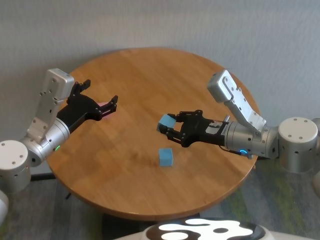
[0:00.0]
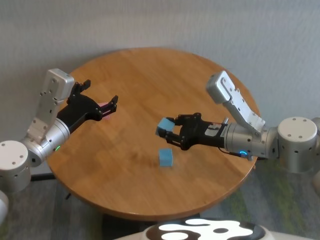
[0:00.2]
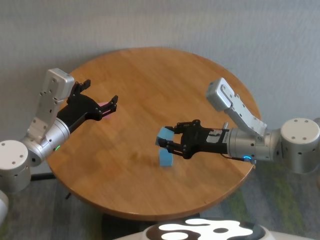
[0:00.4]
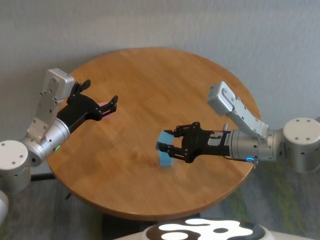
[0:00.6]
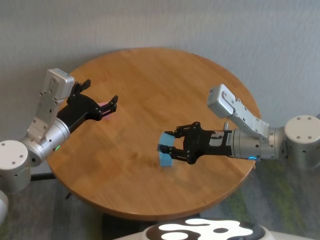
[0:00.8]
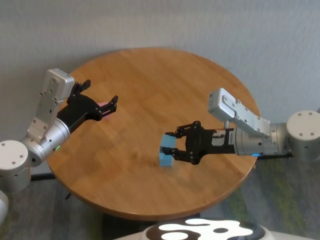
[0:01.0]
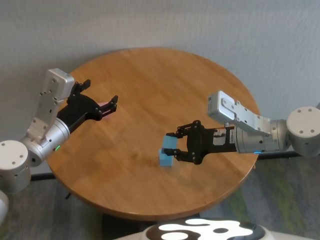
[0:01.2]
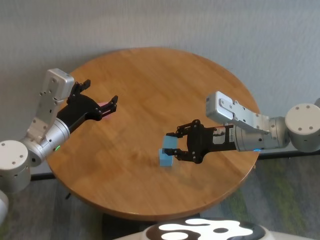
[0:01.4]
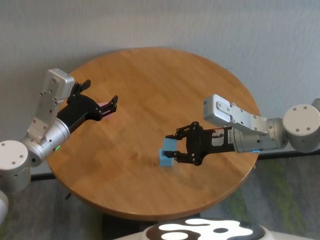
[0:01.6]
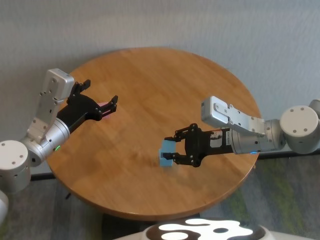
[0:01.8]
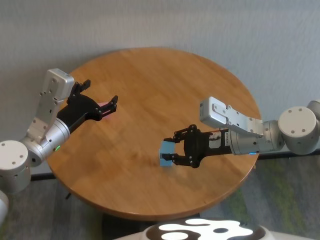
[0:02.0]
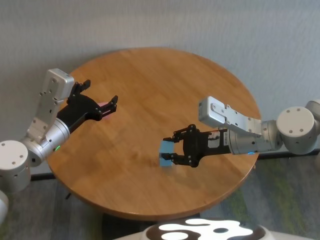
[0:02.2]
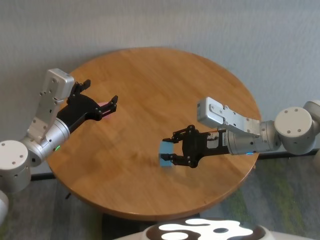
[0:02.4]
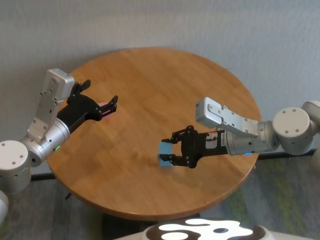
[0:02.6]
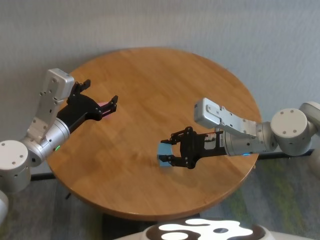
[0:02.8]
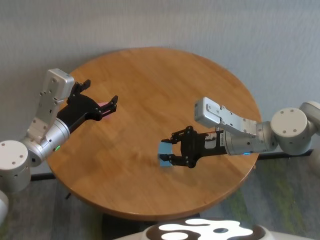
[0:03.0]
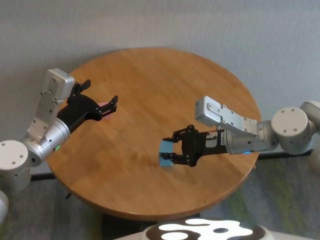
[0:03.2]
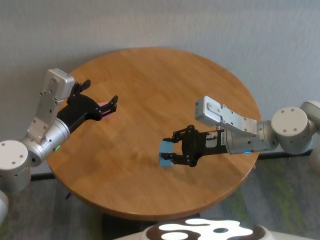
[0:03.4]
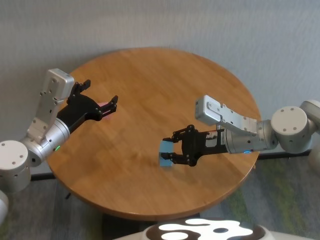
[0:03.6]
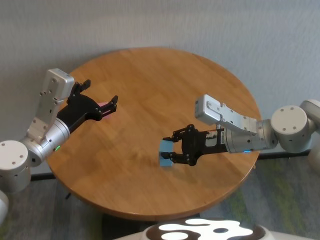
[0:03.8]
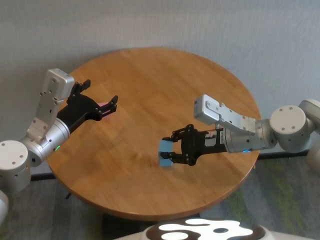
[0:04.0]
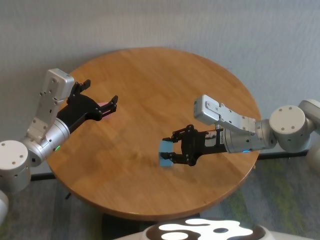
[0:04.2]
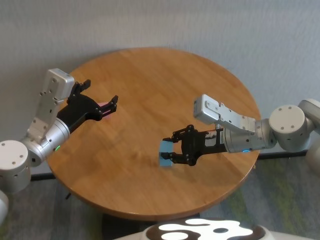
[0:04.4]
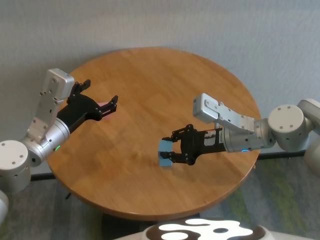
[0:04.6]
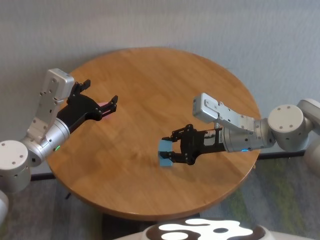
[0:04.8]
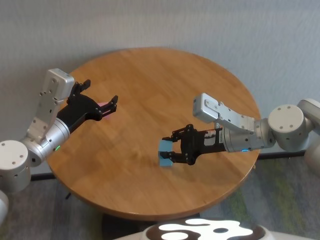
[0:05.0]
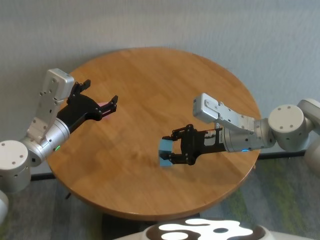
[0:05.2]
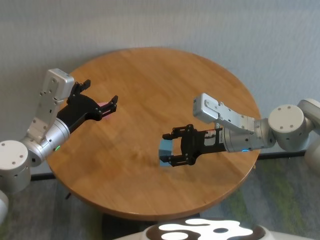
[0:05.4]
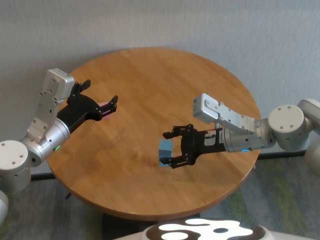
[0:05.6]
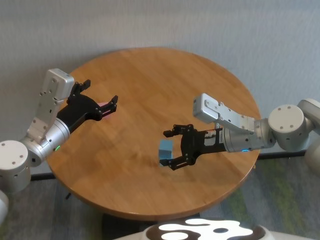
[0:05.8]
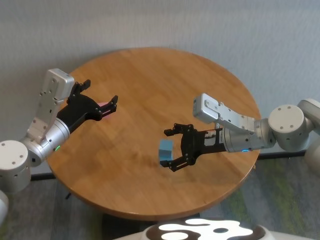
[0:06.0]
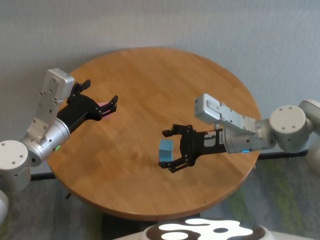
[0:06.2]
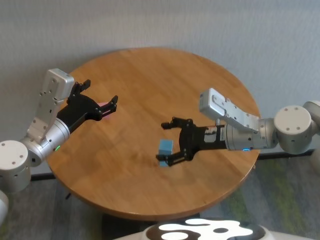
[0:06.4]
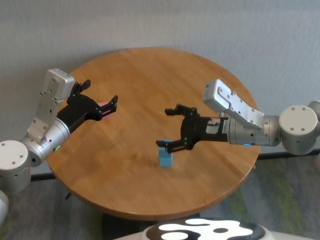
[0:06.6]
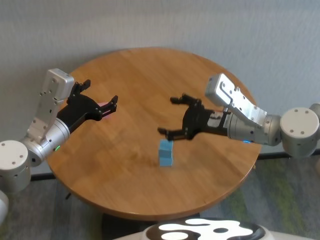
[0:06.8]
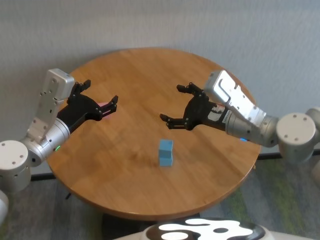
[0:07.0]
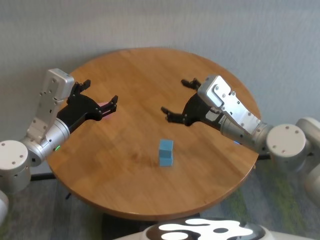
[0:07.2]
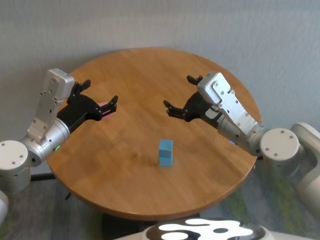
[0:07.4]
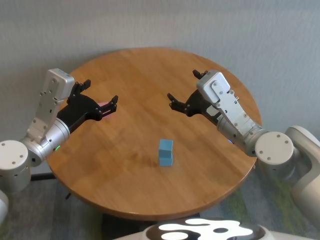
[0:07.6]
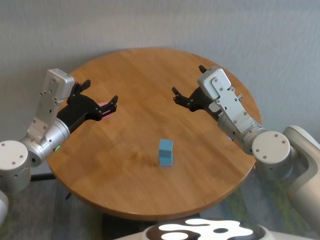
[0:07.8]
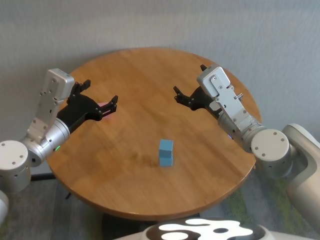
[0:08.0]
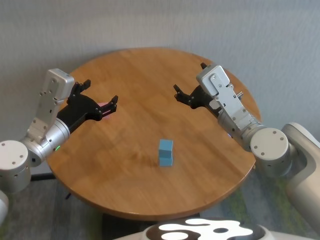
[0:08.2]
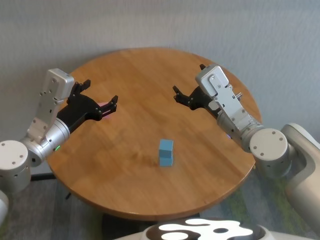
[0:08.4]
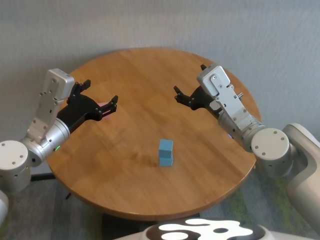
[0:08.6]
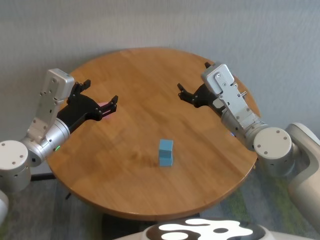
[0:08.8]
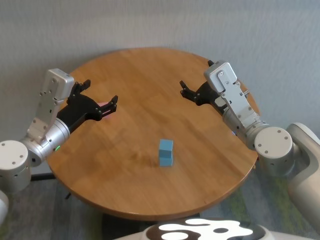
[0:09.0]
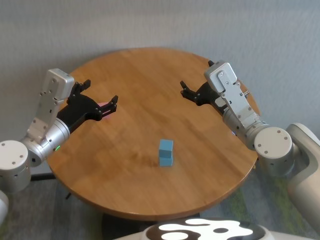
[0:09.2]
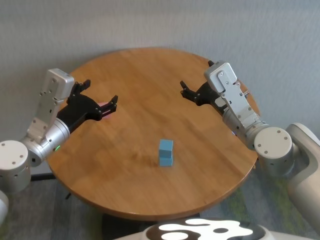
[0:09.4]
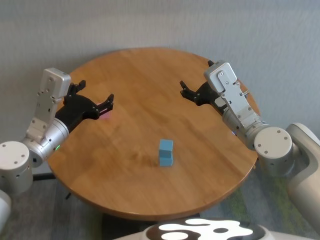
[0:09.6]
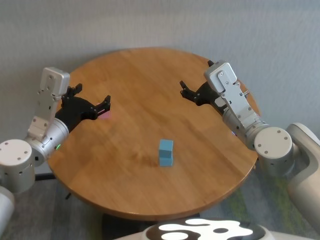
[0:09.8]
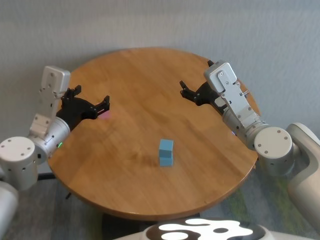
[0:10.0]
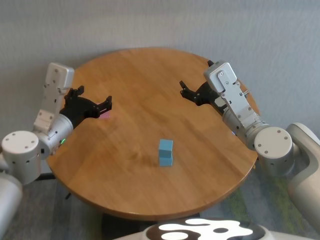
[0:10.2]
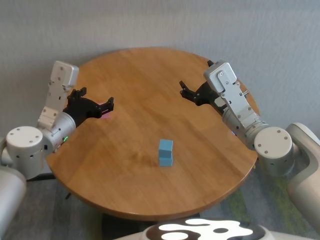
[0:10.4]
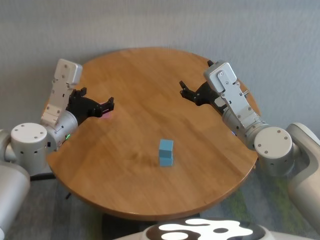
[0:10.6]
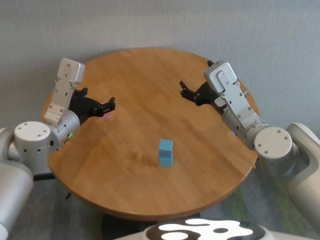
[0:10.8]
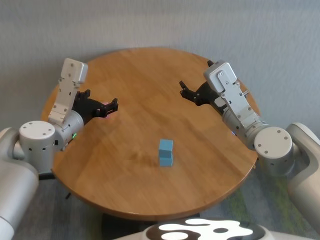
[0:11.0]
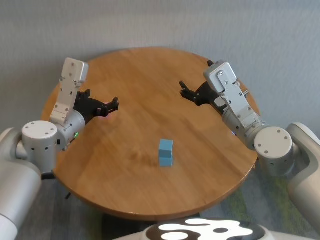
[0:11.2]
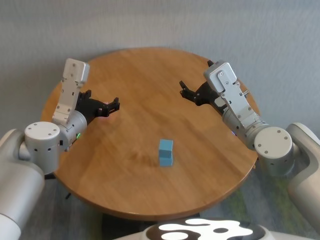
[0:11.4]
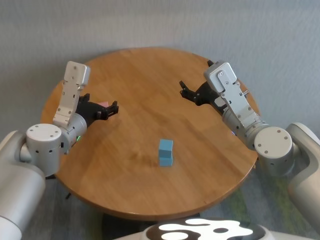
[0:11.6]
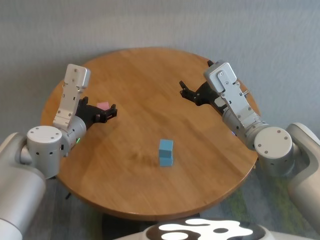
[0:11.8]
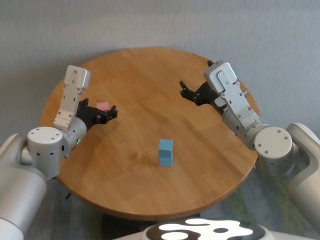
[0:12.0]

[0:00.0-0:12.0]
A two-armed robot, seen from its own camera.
Task of the whole recording: stack building blocks on the table.
Step, 0:00.0 to 0:05.6: Place the blue building block on the blue building blocks with right gripper.

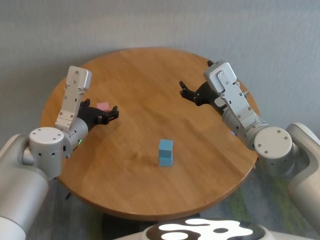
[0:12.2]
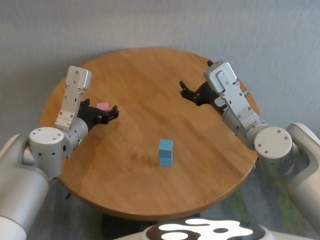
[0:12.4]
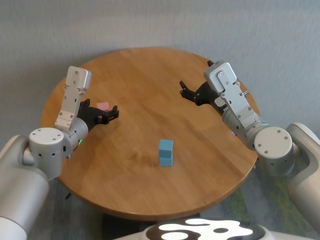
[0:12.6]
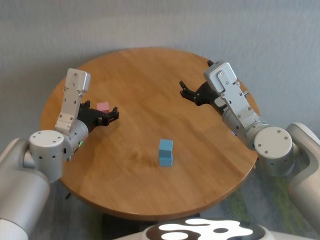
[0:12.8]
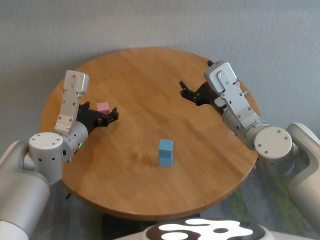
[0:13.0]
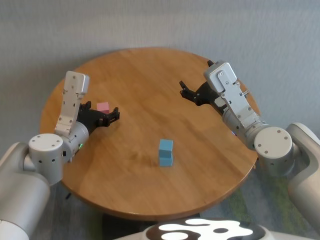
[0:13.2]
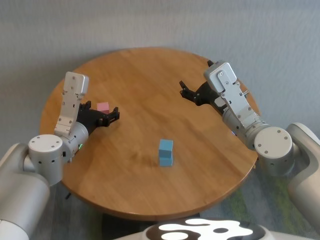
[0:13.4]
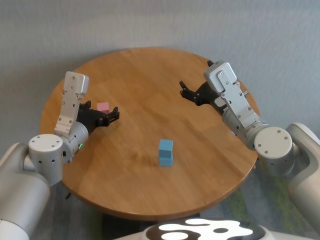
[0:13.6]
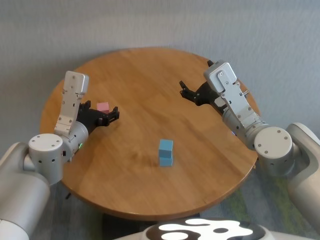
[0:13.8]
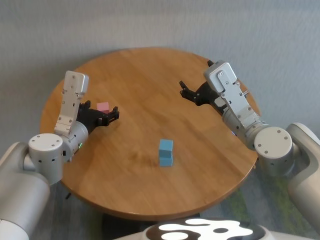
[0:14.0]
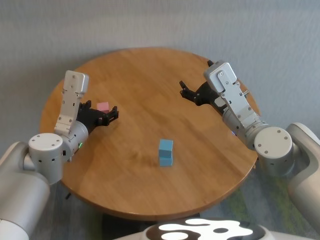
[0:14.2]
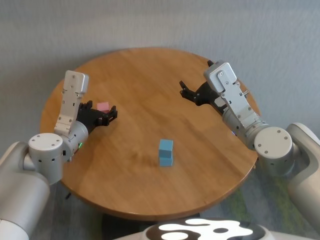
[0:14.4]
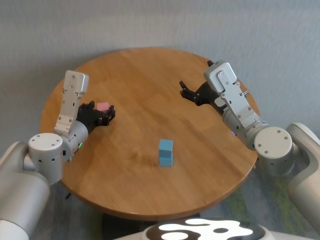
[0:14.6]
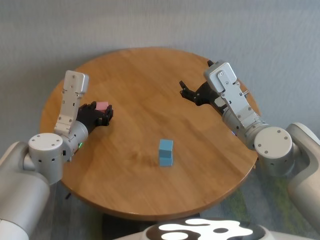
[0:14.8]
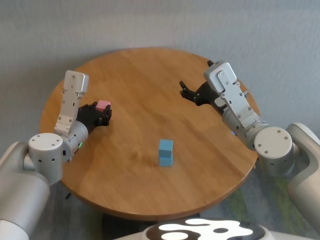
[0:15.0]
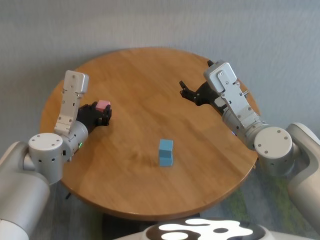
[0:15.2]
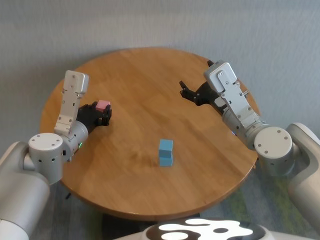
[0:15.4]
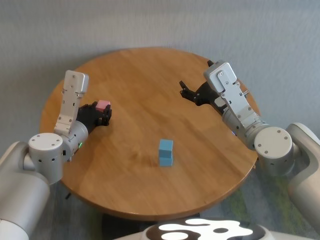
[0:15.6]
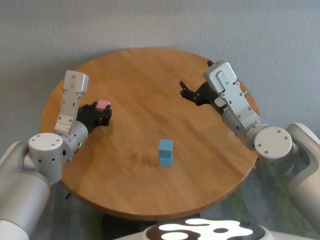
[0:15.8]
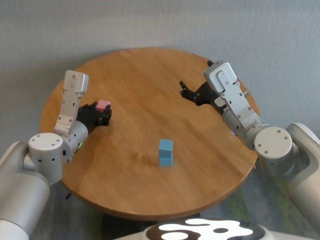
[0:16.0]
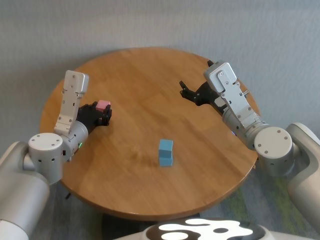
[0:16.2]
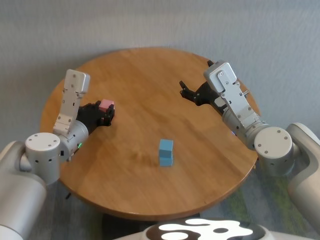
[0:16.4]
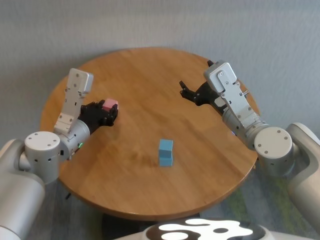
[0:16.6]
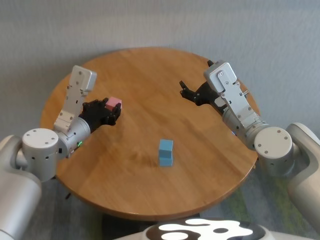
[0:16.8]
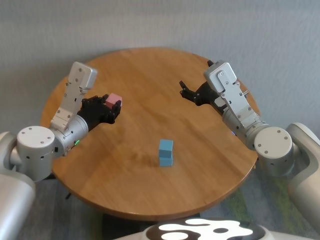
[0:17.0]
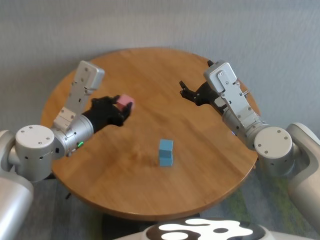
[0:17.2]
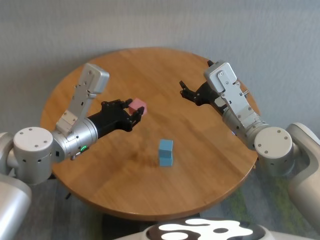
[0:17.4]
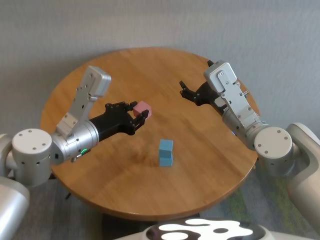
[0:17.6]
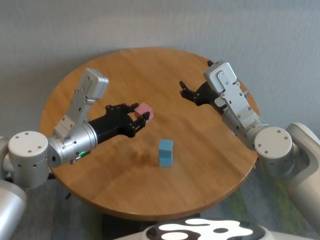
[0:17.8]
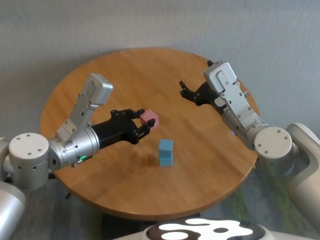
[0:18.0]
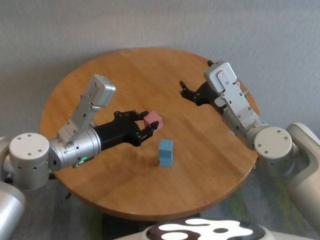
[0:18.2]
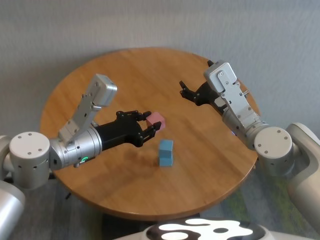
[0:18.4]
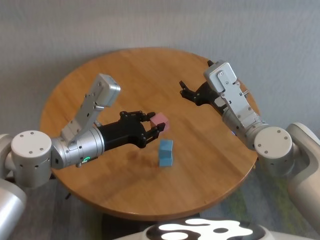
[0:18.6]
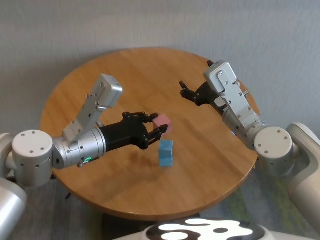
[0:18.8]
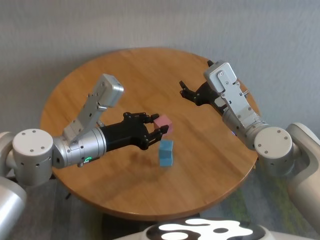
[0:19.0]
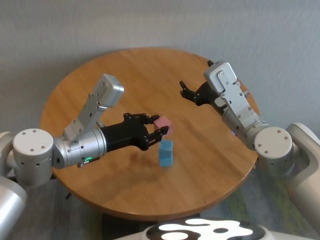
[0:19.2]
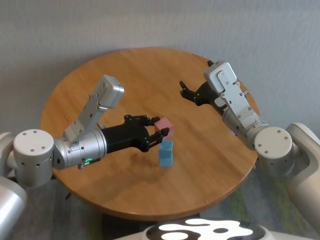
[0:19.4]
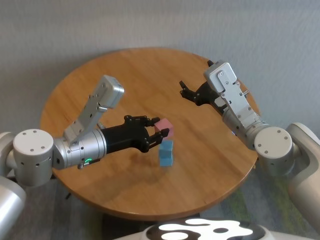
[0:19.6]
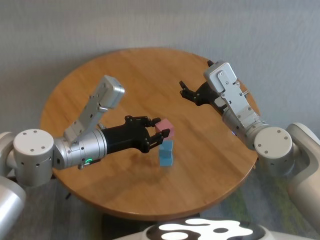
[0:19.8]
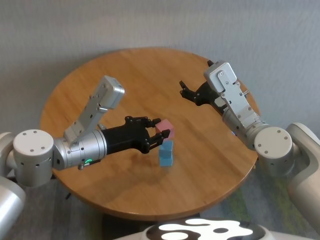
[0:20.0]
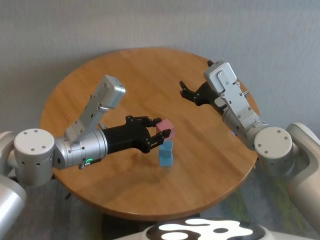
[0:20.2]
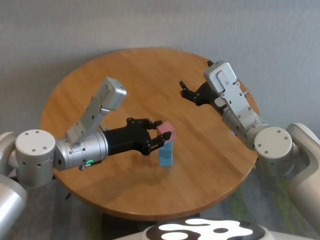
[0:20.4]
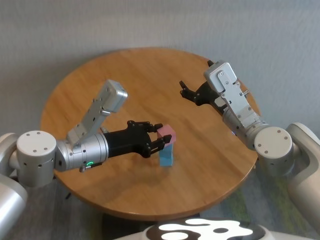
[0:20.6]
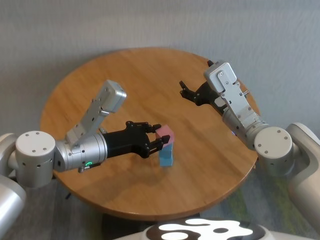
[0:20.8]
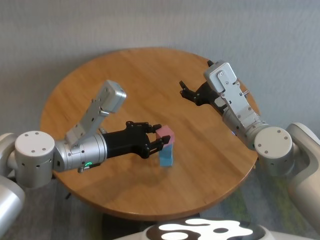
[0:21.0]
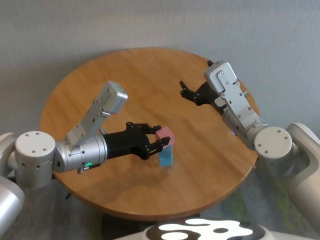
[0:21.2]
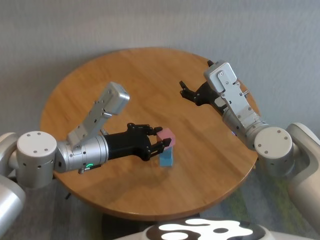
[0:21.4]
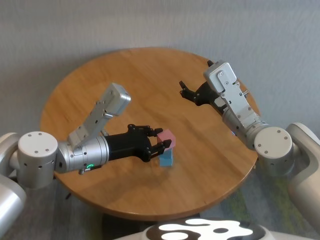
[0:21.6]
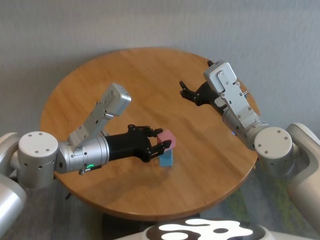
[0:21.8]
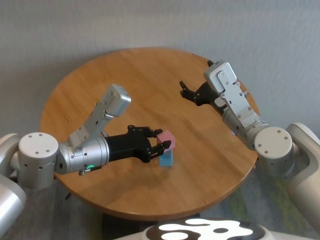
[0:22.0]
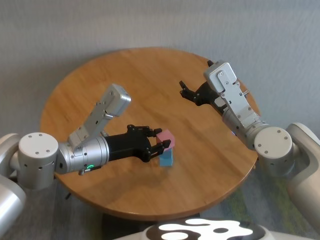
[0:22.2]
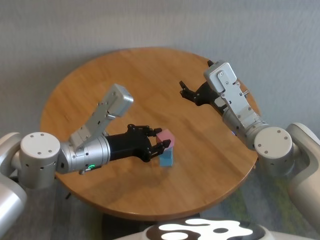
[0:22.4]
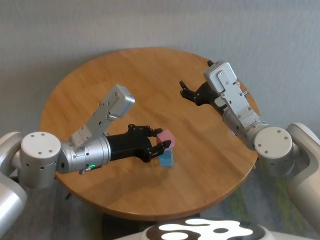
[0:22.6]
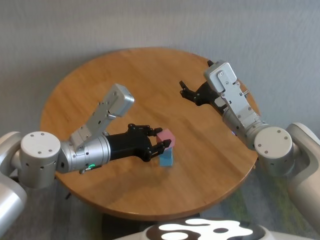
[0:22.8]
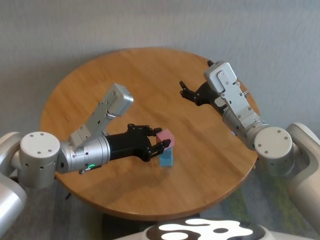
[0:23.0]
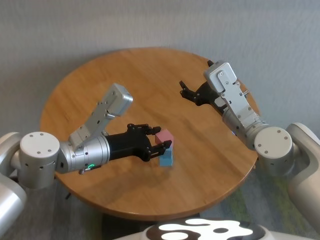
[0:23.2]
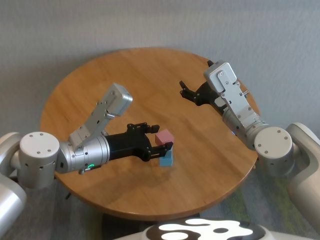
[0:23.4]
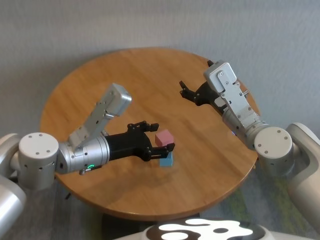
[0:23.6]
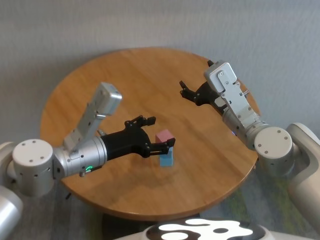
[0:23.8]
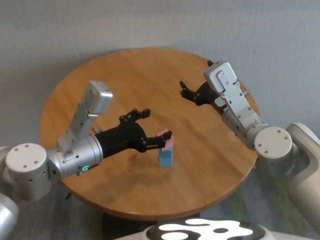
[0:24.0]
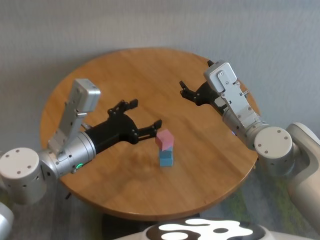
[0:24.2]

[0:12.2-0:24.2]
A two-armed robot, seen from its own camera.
Task of the whole recording: stack building blocks on the table.
Step, 0:12.2 to 0:14.8: Grasp the pink building block with left gripper.
Step, 0:15.0 to 0:23.4: Place the pink building block on the blue building blocks with left gripper.
